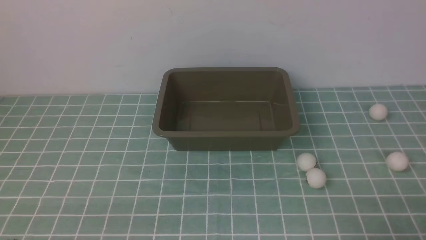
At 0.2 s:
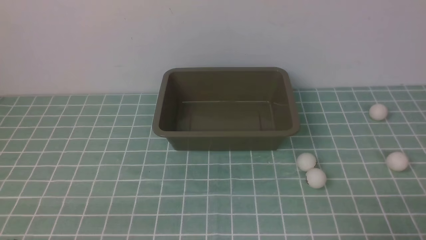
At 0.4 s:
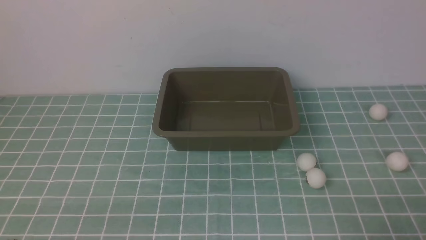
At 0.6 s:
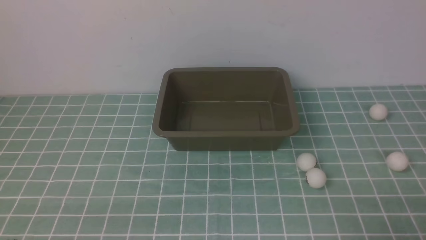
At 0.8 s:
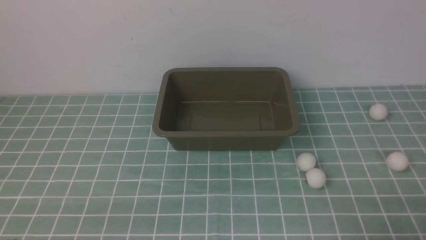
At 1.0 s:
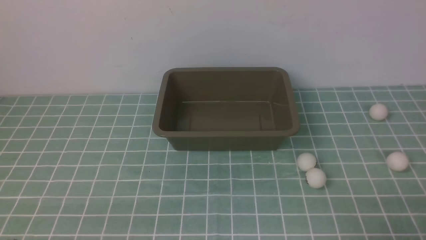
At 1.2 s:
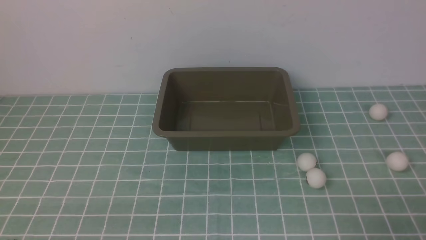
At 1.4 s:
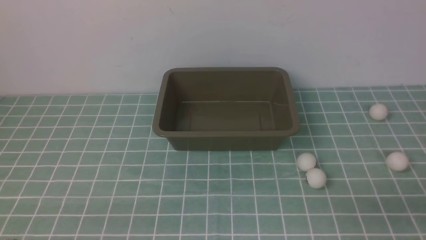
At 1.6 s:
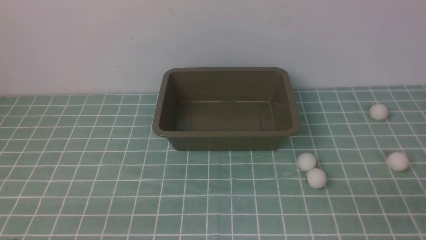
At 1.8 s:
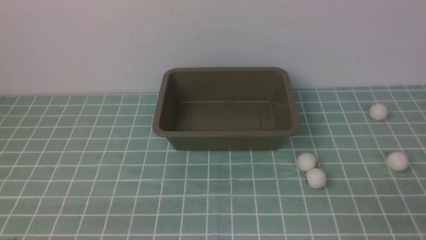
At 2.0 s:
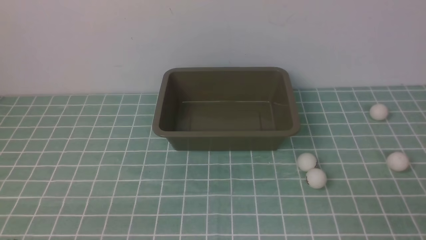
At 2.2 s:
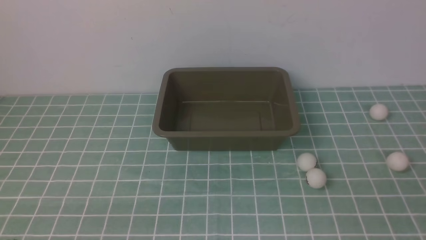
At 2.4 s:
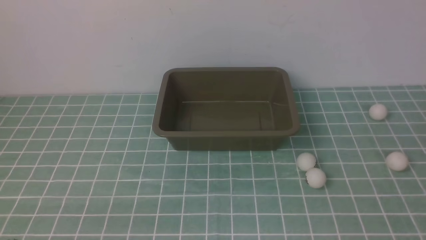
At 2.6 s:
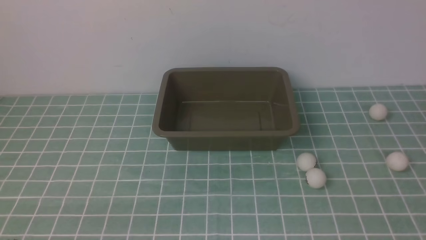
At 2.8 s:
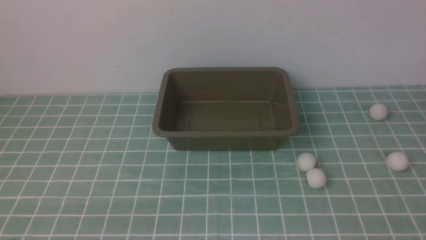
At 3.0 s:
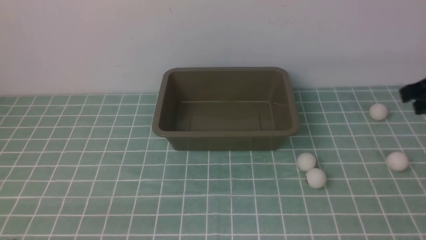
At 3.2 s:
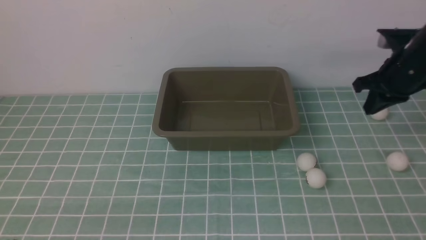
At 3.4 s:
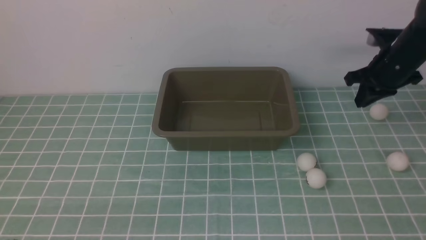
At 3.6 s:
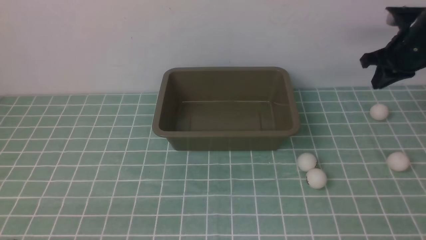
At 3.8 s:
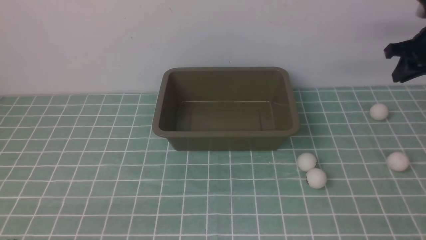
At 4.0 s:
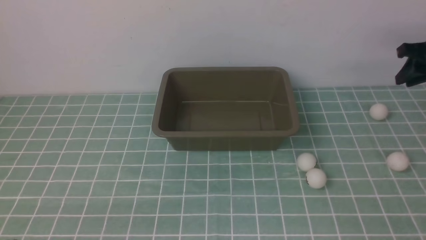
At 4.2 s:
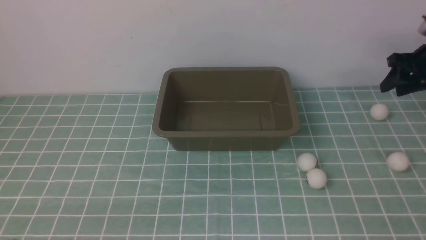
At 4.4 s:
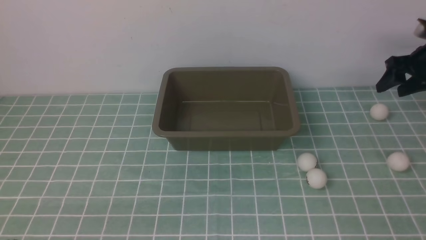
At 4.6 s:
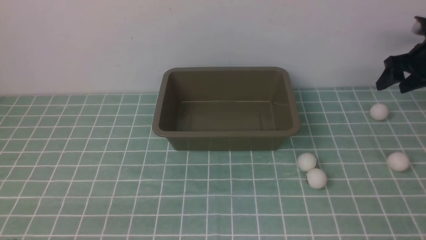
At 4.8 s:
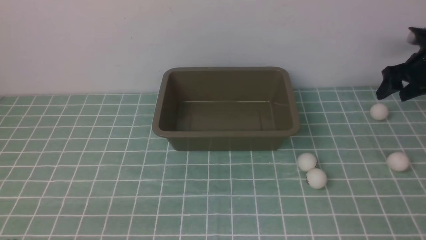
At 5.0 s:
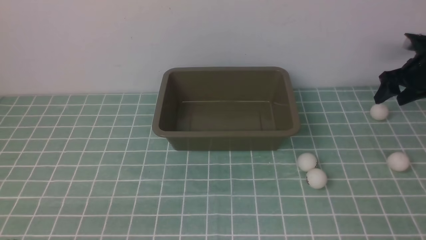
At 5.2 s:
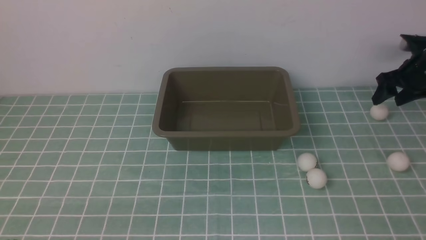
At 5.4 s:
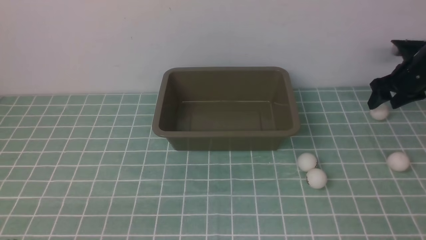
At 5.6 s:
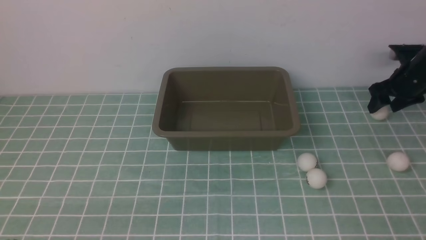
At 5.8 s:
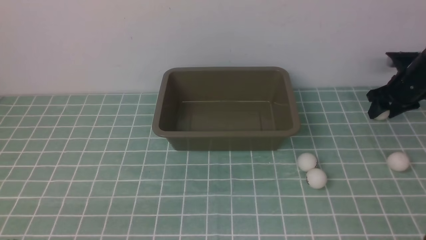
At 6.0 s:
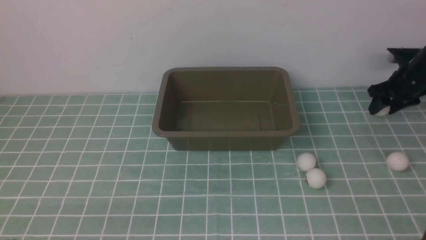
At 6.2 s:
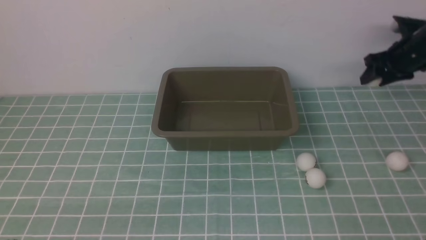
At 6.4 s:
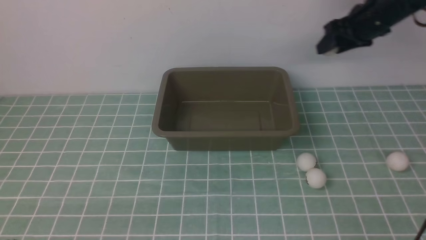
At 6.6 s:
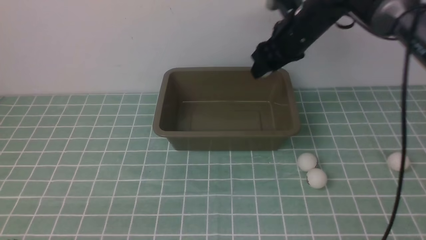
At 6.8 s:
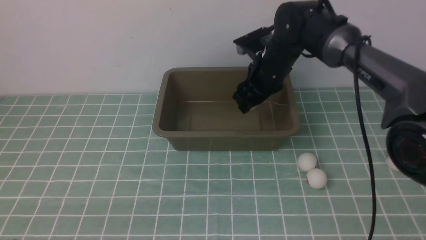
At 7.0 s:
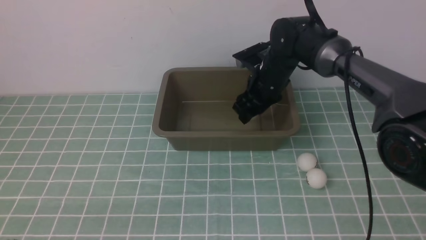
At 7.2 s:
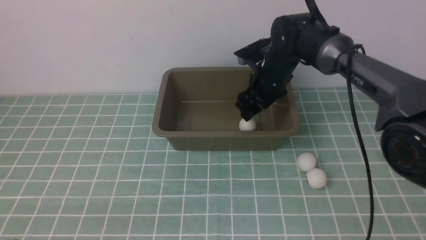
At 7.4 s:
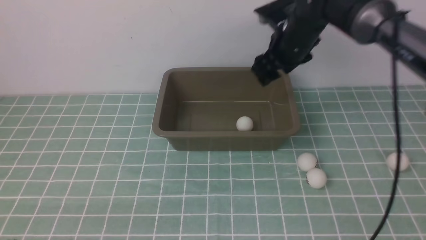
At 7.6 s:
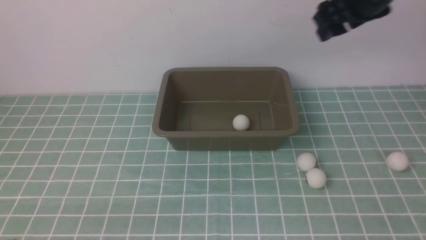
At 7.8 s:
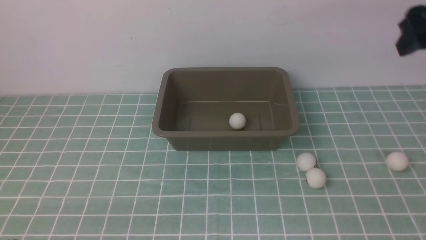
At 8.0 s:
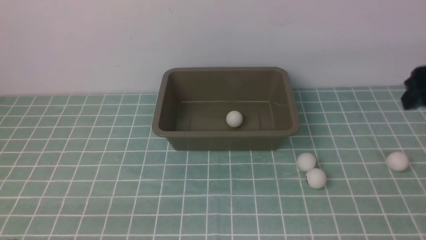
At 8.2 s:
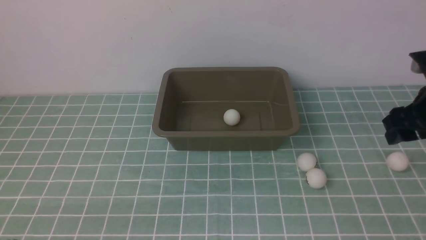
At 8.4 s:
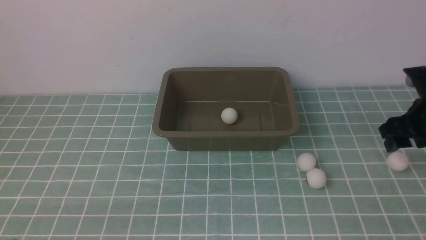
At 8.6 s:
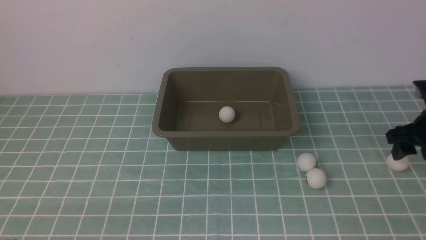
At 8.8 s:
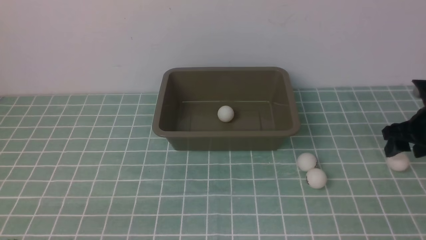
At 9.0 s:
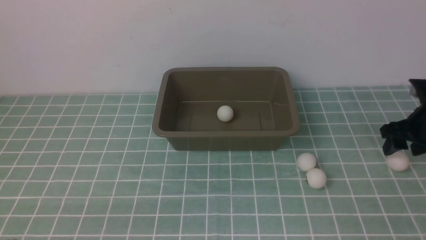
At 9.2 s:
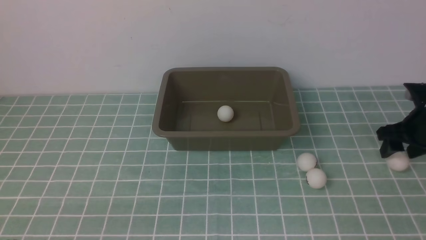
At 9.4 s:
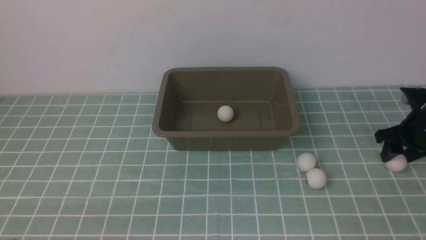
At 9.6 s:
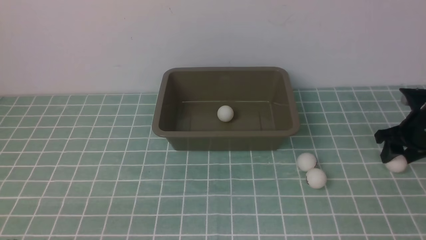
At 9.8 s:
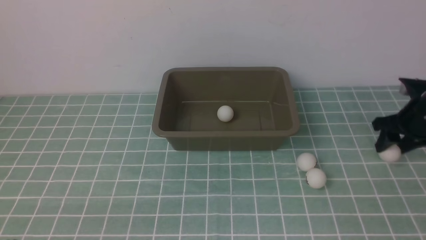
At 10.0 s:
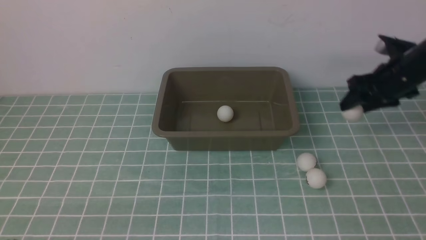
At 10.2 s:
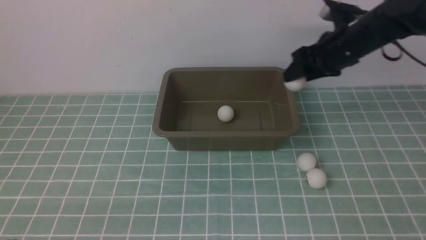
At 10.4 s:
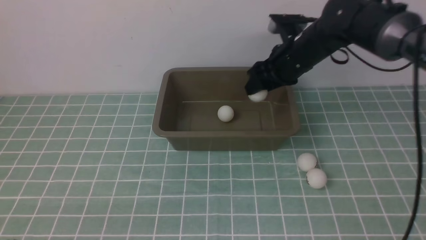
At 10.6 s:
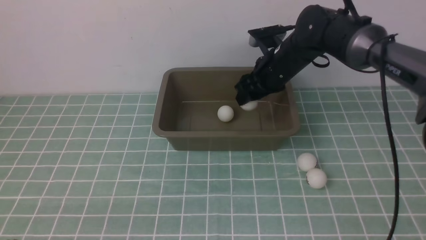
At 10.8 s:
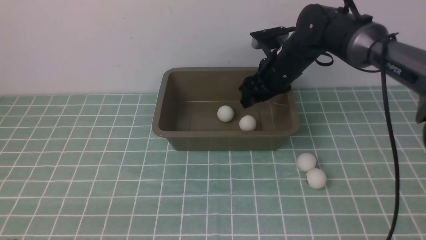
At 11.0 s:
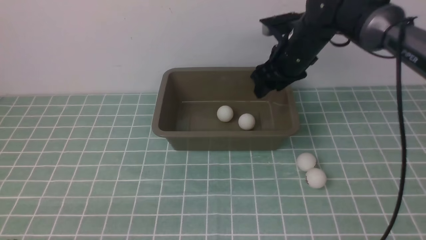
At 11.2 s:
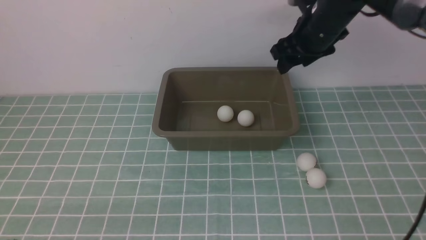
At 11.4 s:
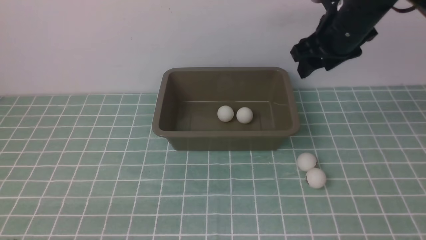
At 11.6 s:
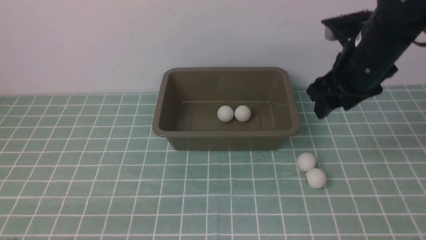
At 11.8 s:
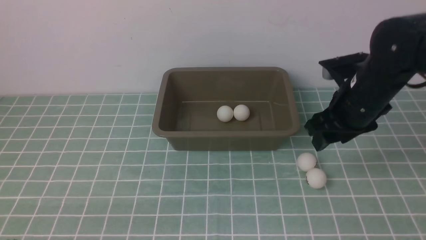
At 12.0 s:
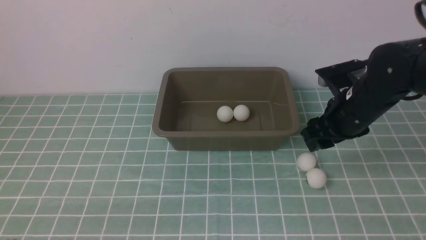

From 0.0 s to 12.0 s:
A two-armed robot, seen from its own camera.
Step, from 0.0 s to 6.2 s: use the right arm to clamp the table tennis ball closest to it.
Step, from 6.4 s to 7.4 s: use the right arm to put the table tennis ball into the box.
Step, from 7.6 s to 9.8 s: use the right arm to clamp the table tennis ball closest to it.
Step, from 10.0 s to 11.0 s: use the right arm to put the table tennis ball into the box.
From 1.6 s to 3.0 s: The right gripper travels forward and upward by approximately 25 cm.
From 3.0 s to 4.4 s: The right gripper heads forward, downward and to the right, covering about 20 cm, and opens.
From 4.4 s to 6.0 s: The right gripper ends up some 5 cm from where it was.
From 6.0 s to 7.6 s: The right gripper shifts some 25 cm backward and upward, and reaches about 25 cm to the left, then returns.
From 7.6 s to 9.0 s: The right gripper heads downward, covering roughly 20 cm.
From 9.0 s to 10.4 s: The right gripper travels to the left and forward by about 20 cm.
From 10.4 s to 12.0 s: The right gripper travels backward by approximately 10 cm.

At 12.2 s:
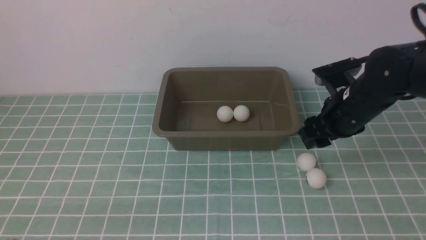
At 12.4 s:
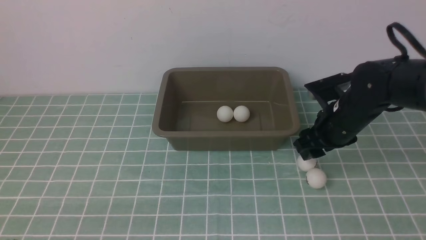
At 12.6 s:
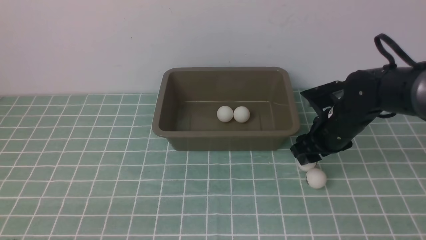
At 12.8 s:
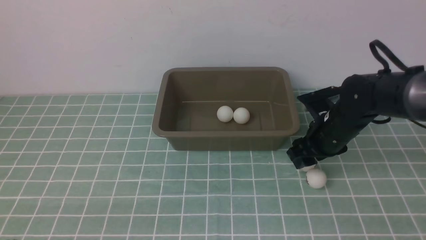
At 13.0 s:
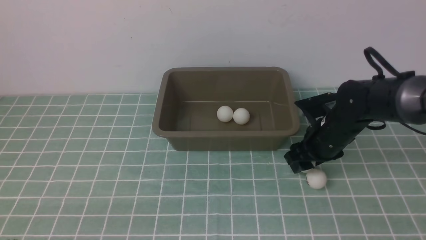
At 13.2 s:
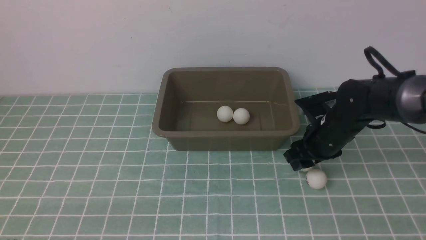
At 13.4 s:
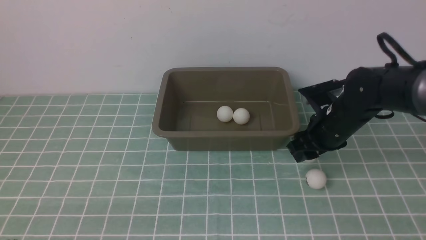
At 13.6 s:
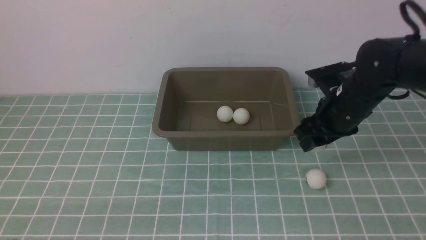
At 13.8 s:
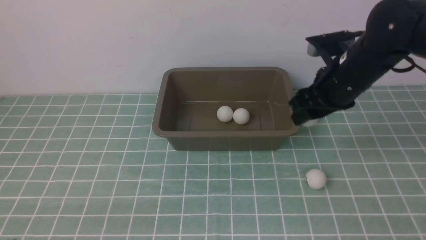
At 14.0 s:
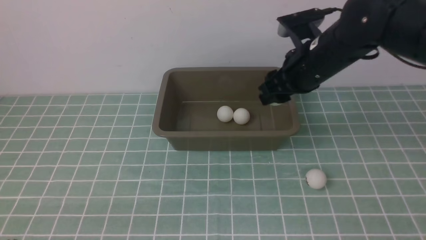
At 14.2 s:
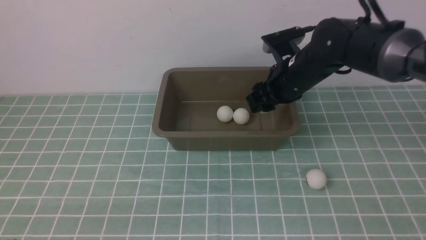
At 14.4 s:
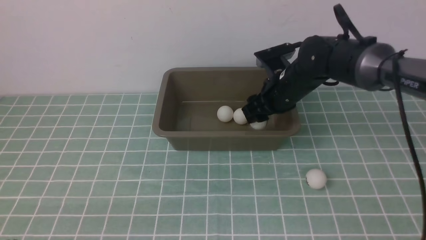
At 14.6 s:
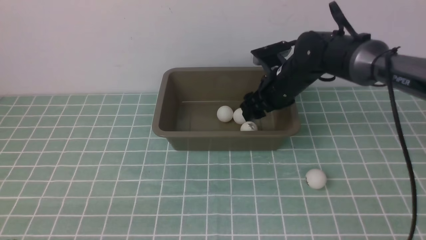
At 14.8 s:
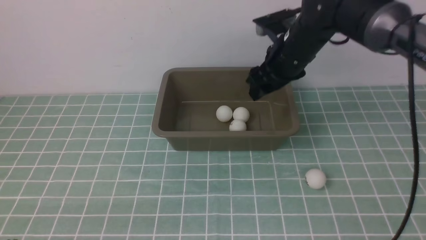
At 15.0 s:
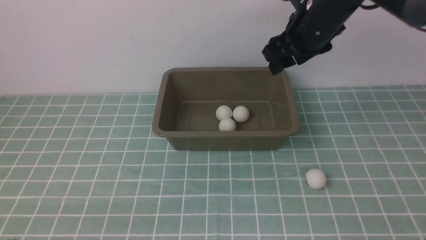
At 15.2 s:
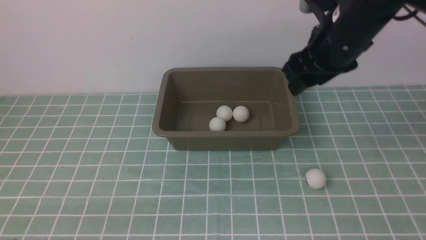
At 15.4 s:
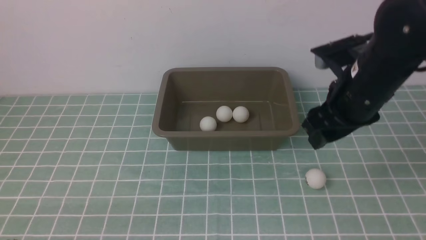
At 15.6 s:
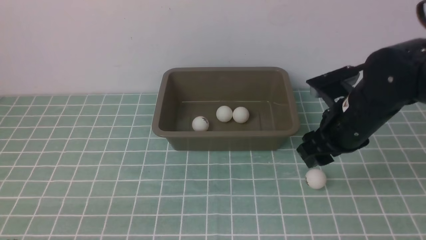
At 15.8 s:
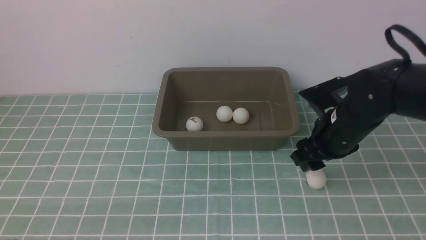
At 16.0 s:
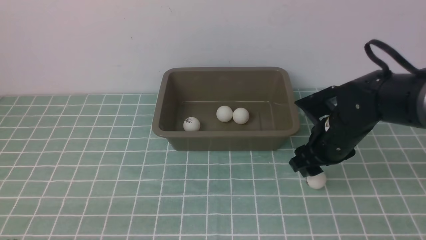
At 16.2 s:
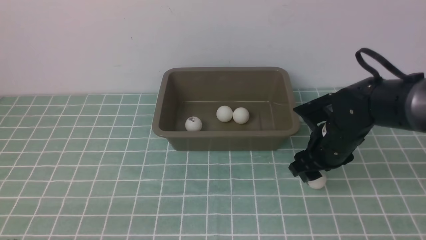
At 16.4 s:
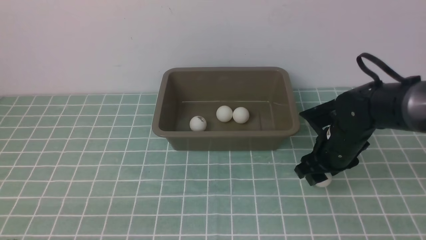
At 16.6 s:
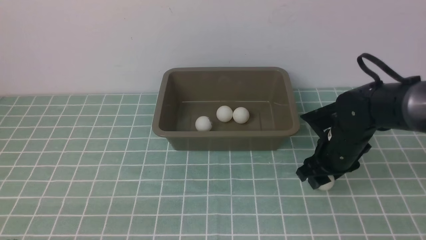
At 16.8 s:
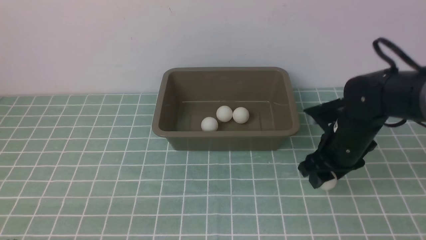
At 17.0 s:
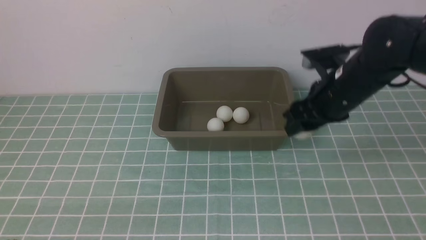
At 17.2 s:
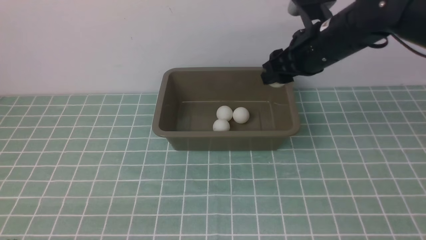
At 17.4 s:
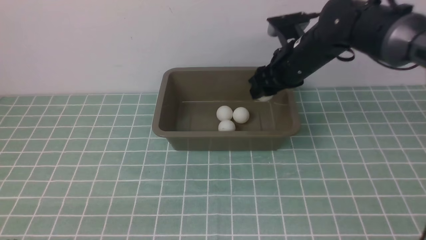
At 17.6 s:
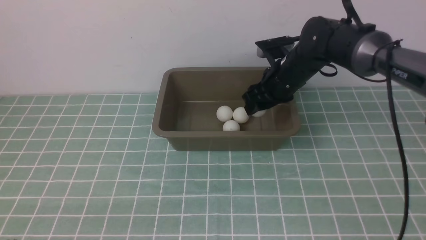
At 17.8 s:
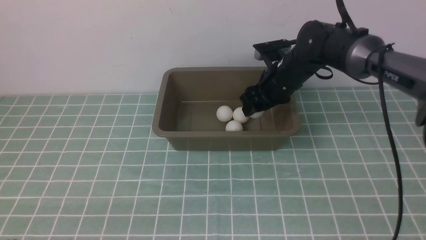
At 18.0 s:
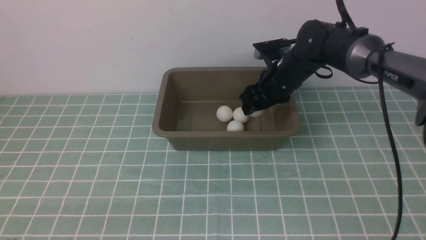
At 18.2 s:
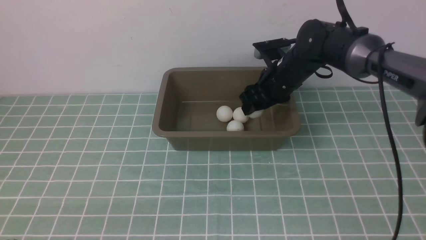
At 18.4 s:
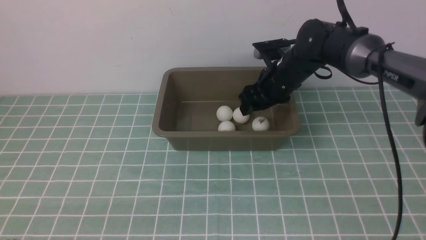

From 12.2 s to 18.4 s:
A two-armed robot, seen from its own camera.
Step, from 12.2 s to 13.4 s: use the right arm to clamp the table tennis ball closest to it.
Step, from 13.6 s to 14.6 s: use the right arm to put the table tennis ball into the box.
Step, from 15.0 s to 17.0 s: use the right arm to clamp the table tennis ball closest to it.
From 12.2 s to 13.8 s: The right gripper moves approximately 5 cm.
From 13.8 s to 15.4 s: The right gripper goes upward and returns, roughly 5 cm each way.
From 15.4 s to 16.8 s: The right gripper shifts about 10 cm downward.
From 16.8 s to 18.4 s: The right gripper goes some 15 cm forward and to the left.
